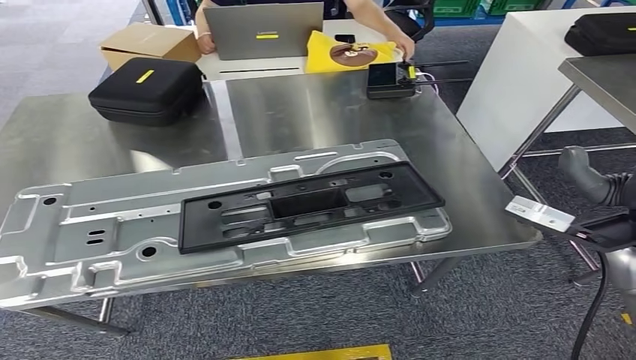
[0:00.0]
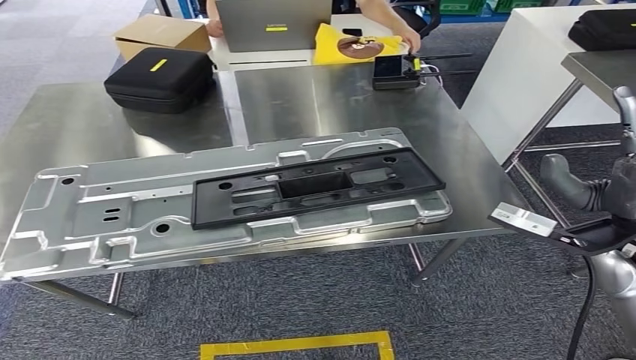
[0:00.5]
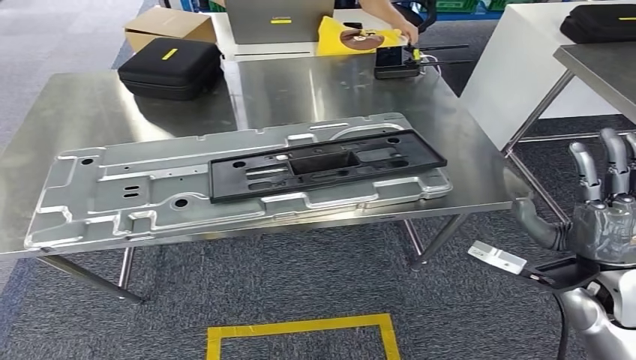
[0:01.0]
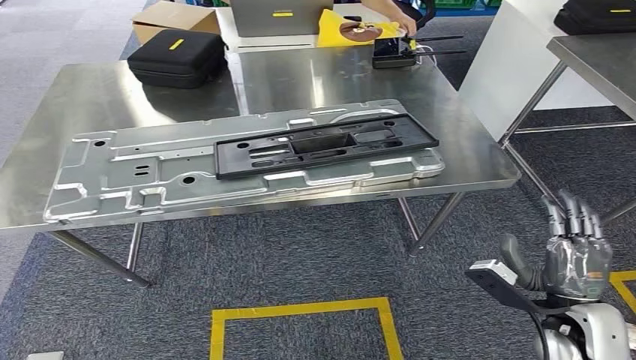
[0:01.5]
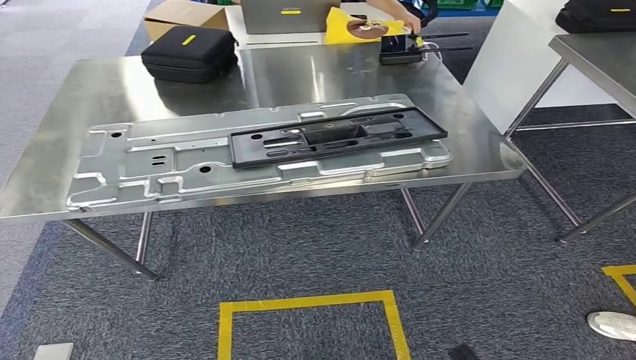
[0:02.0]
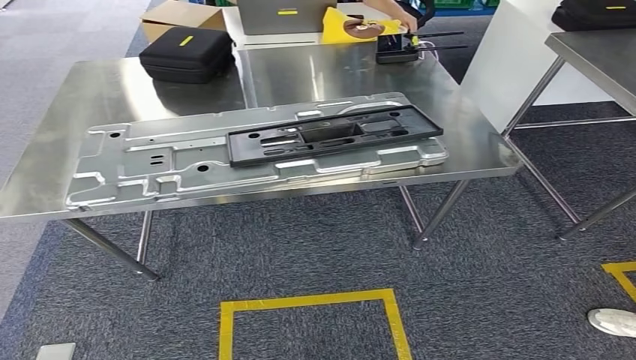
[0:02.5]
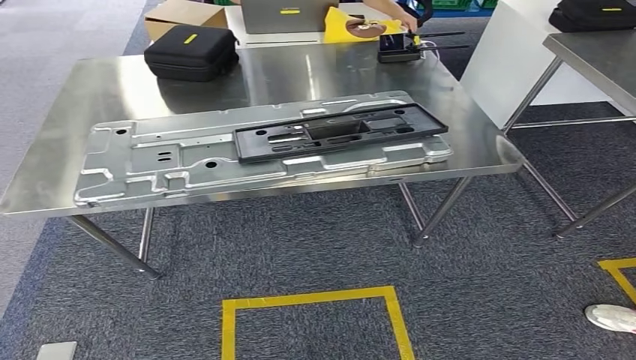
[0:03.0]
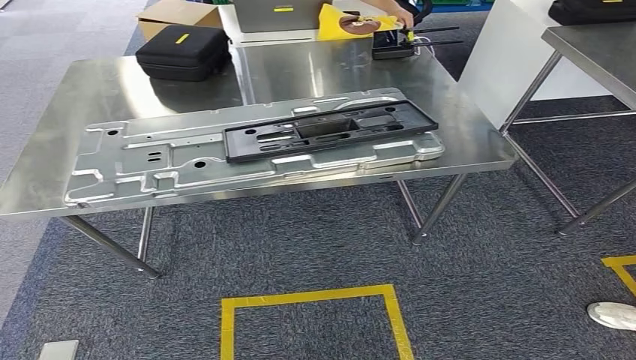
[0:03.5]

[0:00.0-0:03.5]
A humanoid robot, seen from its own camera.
Step, 0:01.0 to 0:03.5: Return to the initial position at the shelf.
